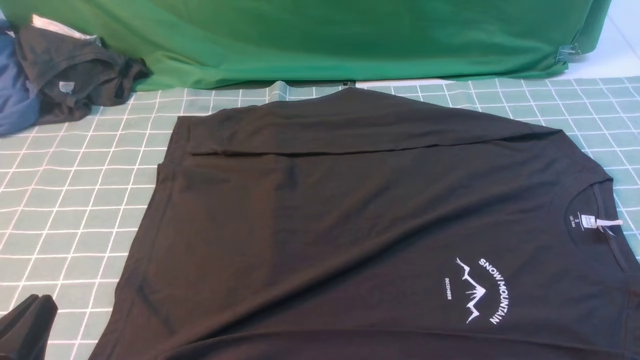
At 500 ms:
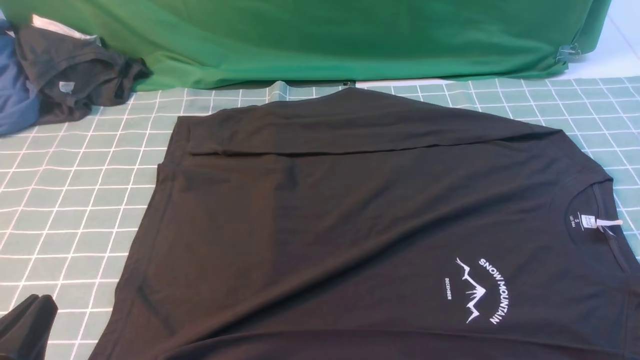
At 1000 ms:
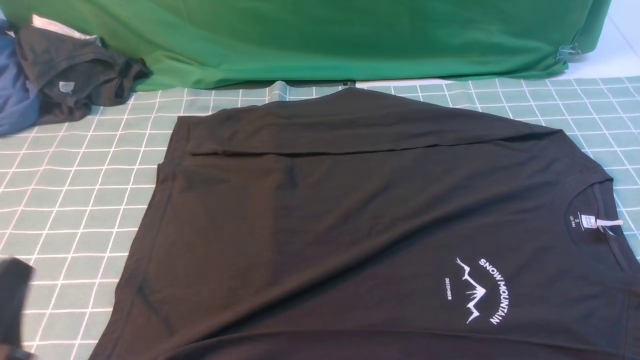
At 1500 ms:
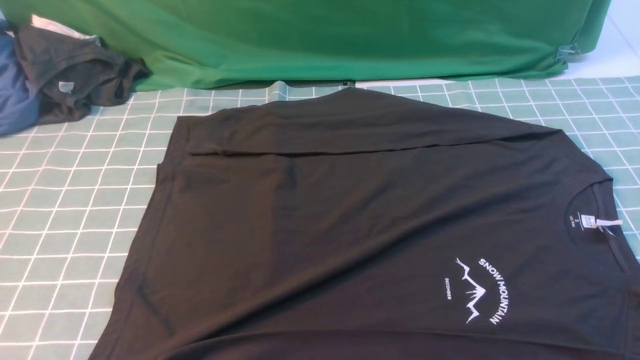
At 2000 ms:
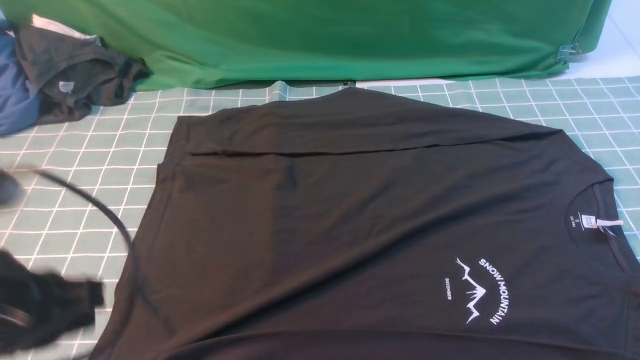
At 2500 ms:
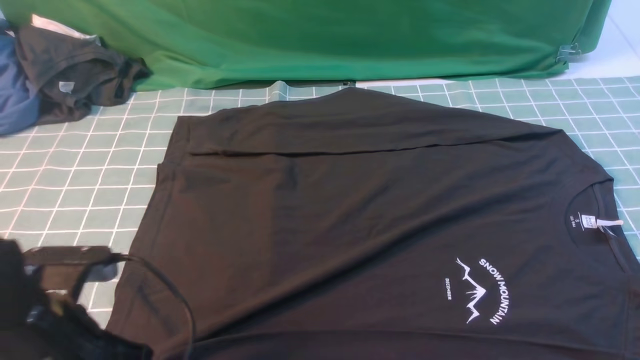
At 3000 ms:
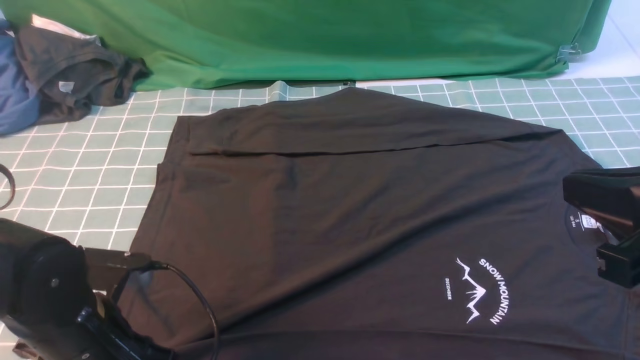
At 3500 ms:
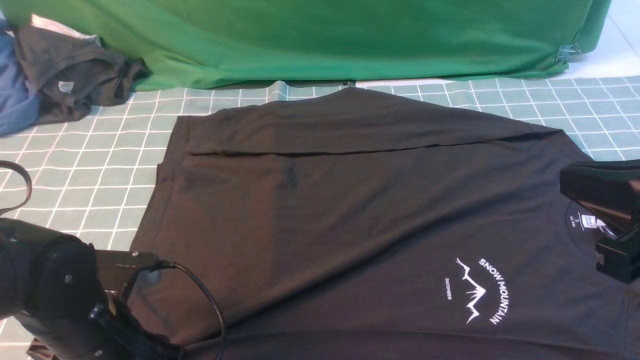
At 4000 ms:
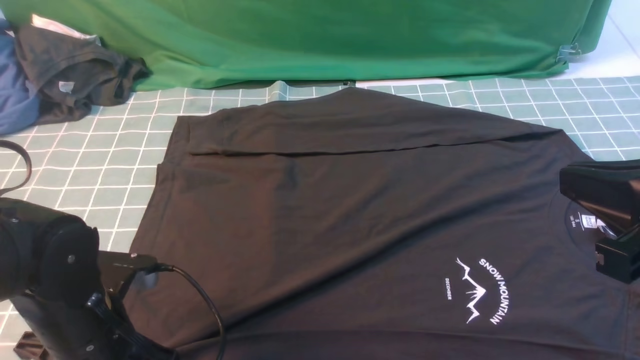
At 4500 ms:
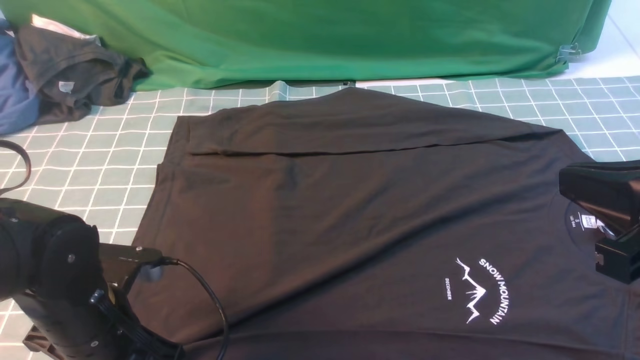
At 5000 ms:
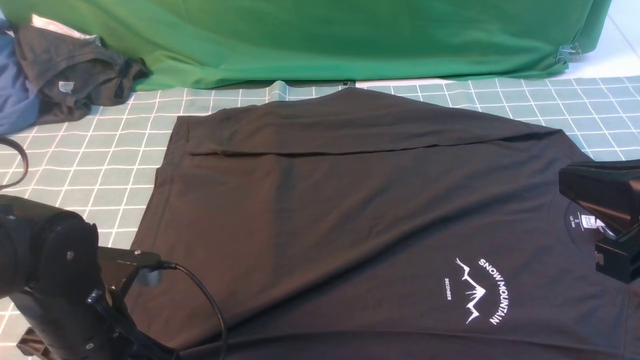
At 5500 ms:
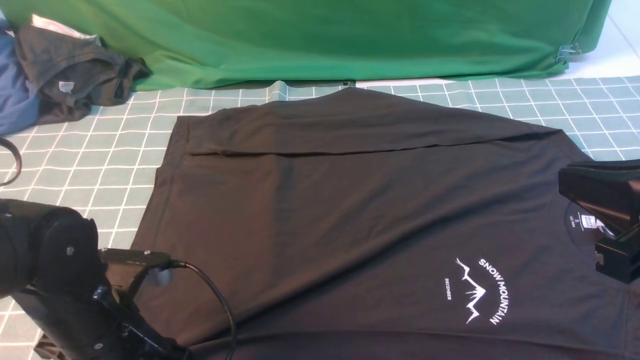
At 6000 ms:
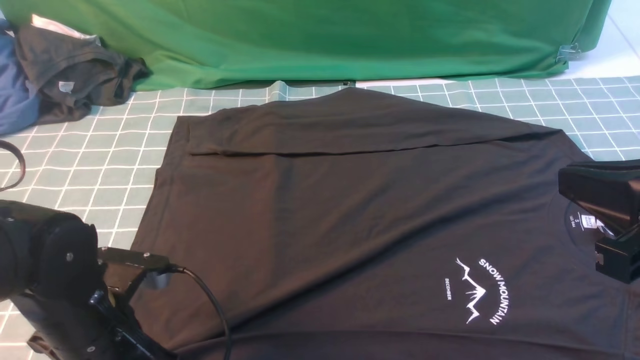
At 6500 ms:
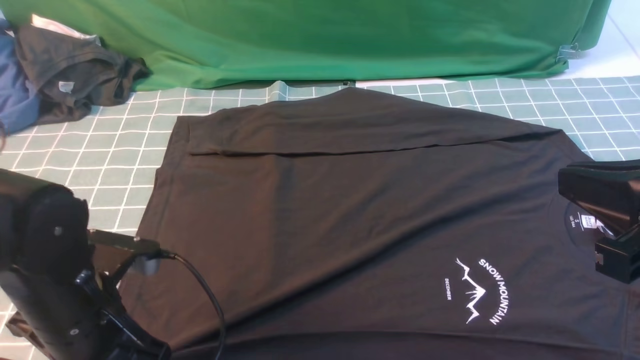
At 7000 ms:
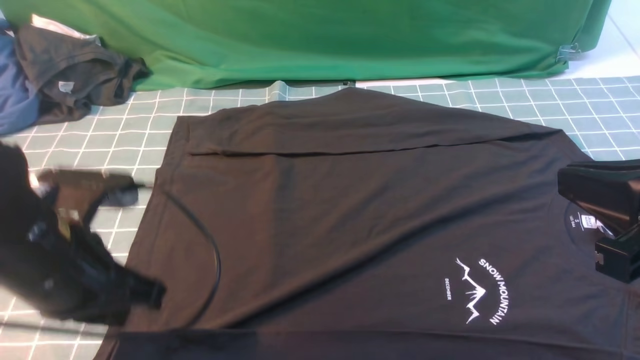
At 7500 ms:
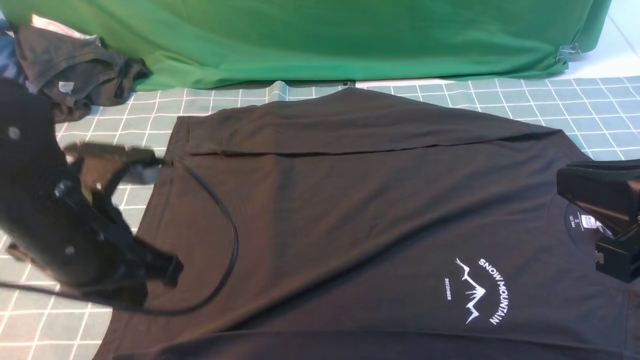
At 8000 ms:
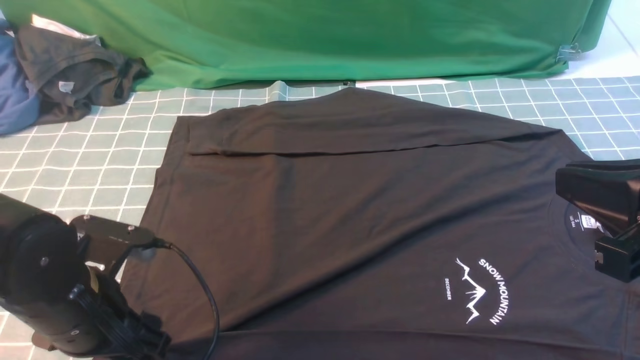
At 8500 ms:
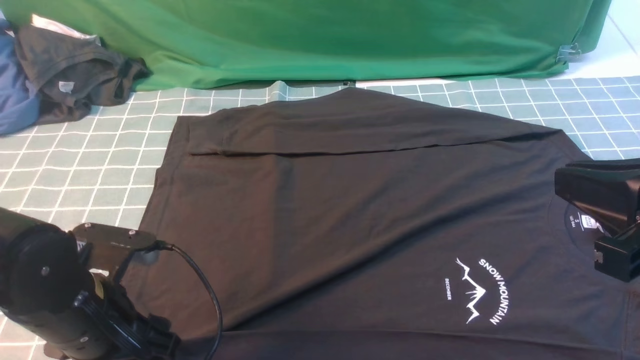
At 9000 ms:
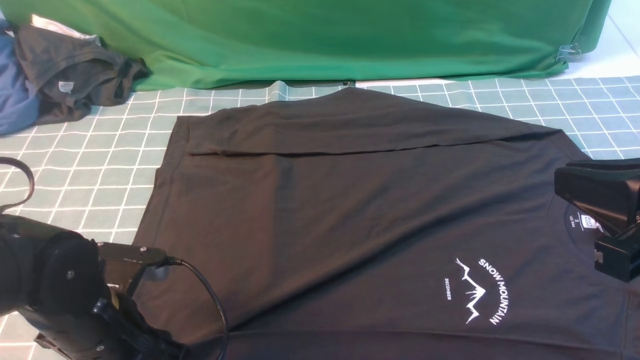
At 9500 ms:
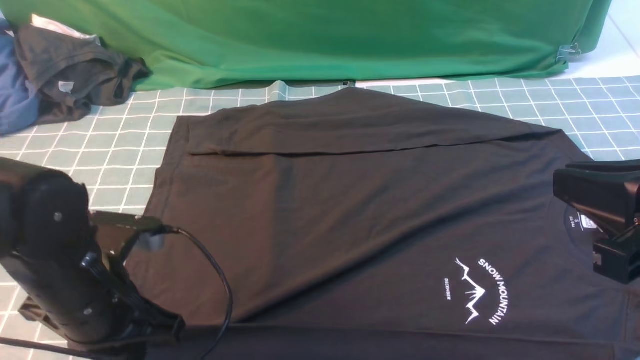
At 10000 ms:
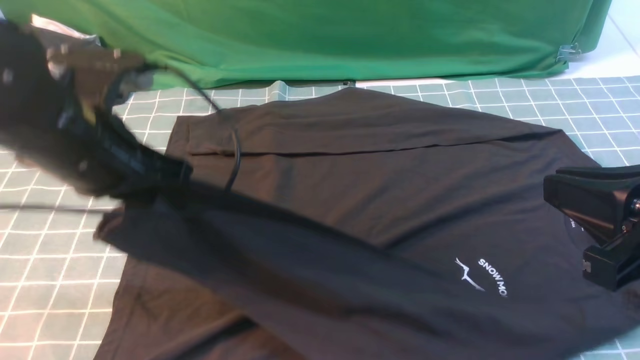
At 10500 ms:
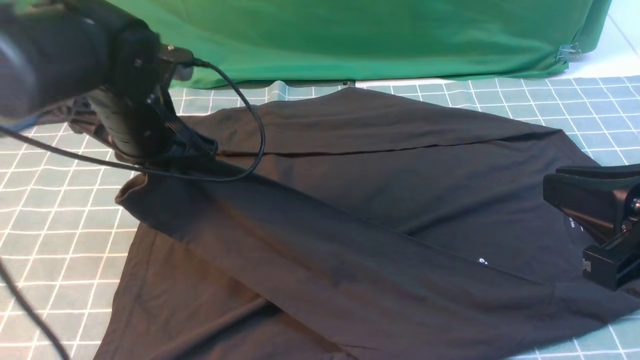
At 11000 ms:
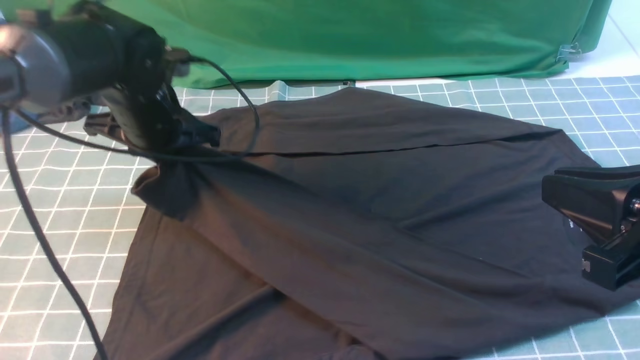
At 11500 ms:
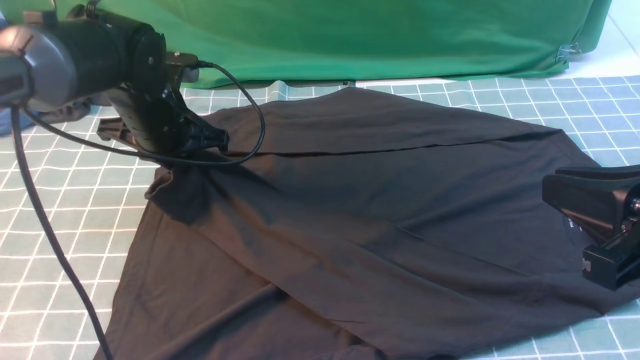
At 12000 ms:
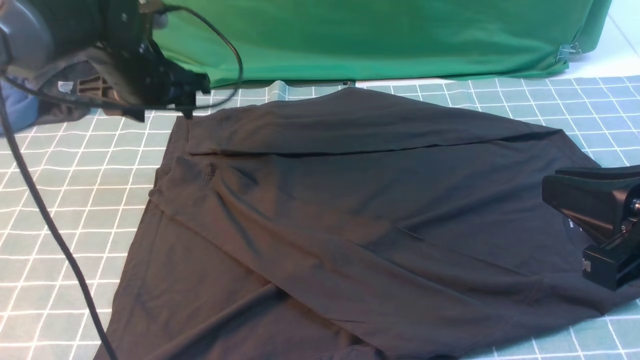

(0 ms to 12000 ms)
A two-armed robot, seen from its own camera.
Step, 0 ms - 9500 ms: use the left arm to clamp the cuff closest to it.
0 ms - 2000 ms: The left gripper travels upward and forward by approximately 10 cm.
2000 ms - 4000 ms: The left gripper goes about 10 cm downward and forward, and opens, while the right gripper heads to the left and forward, covering approximately 10 cm.
4000 ms - 6000 ms: The left gripper closes.
6000 ms - 8000 ms: The left gripper moves some 10 cm upward and comes back, and opens.
8000 ms - 10000 ms: The left gripper is displaced upward and forward by about 15 cm, and closes its fingers.
10000 ms - 12000 ms: The left gripper shifts some 15 cm forward, and opens its fingers.

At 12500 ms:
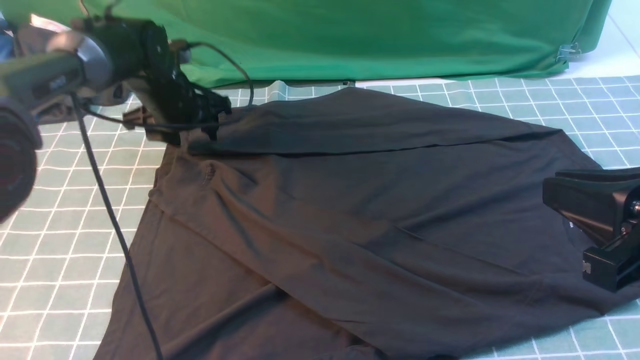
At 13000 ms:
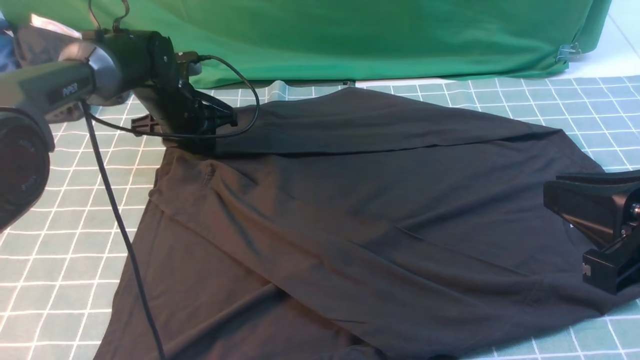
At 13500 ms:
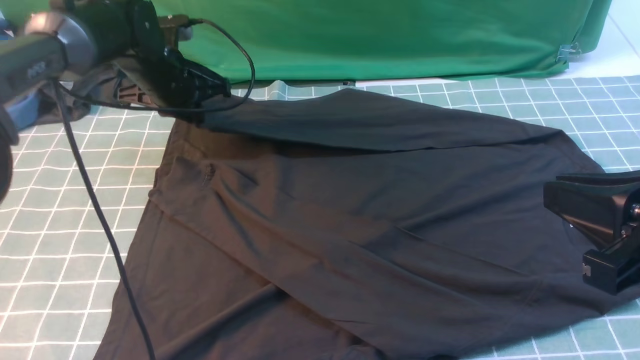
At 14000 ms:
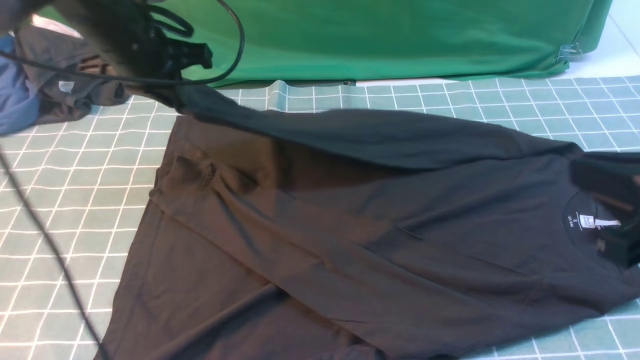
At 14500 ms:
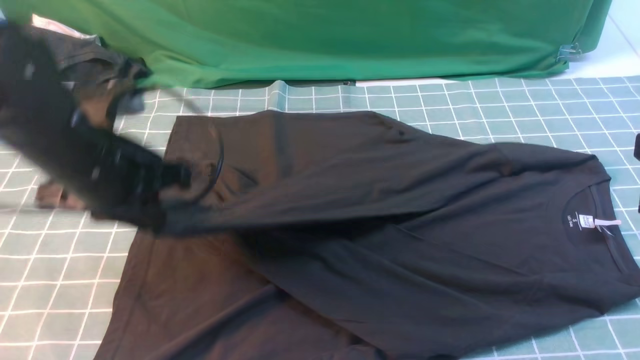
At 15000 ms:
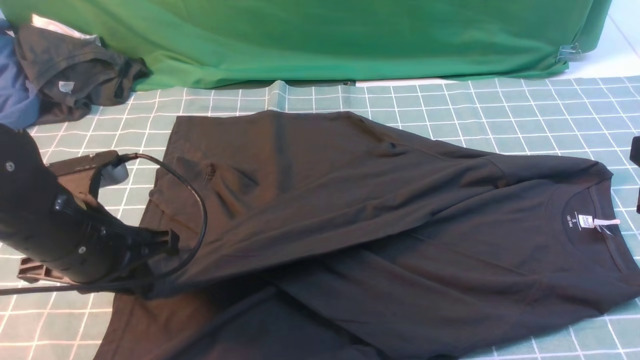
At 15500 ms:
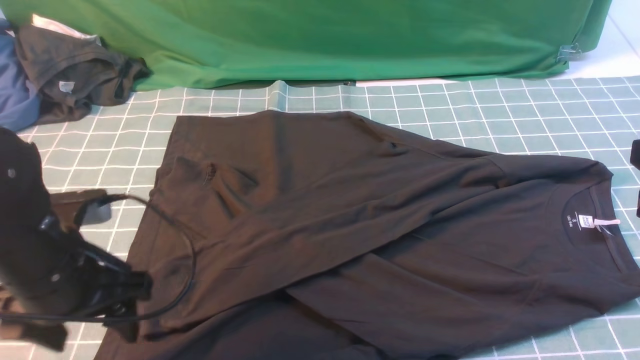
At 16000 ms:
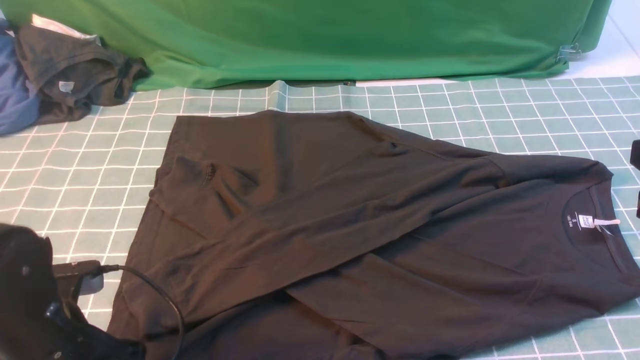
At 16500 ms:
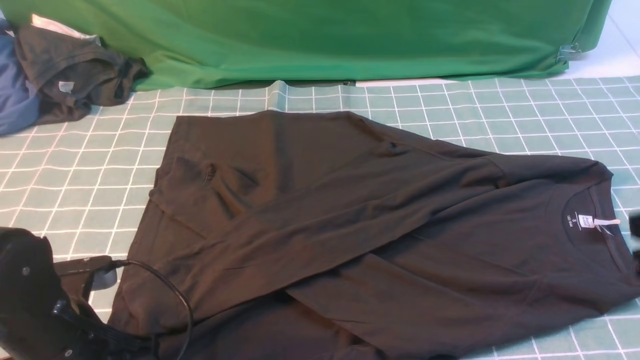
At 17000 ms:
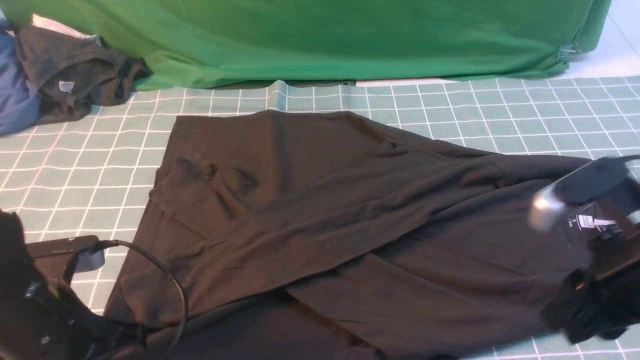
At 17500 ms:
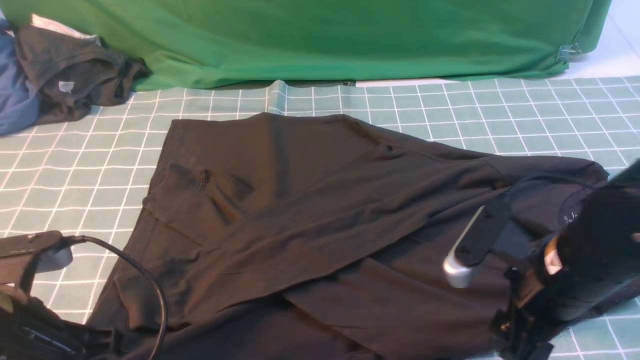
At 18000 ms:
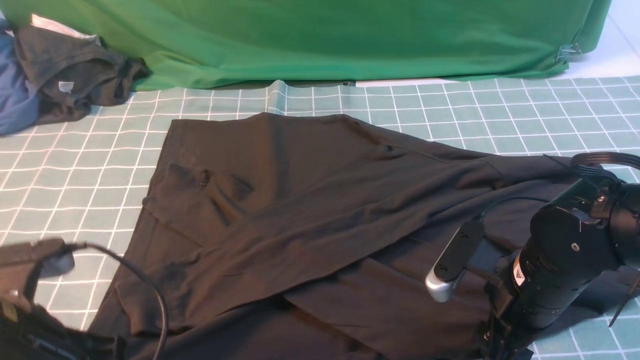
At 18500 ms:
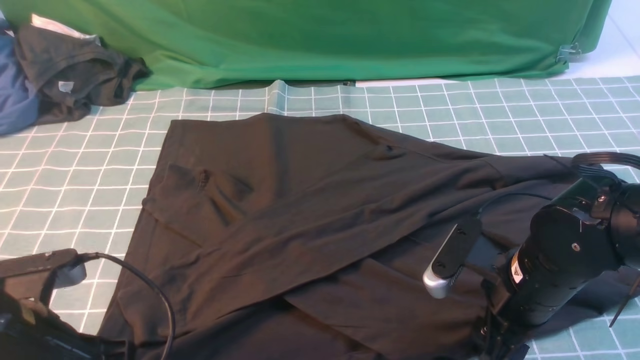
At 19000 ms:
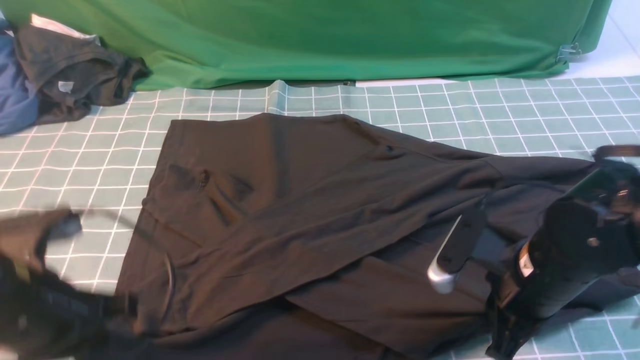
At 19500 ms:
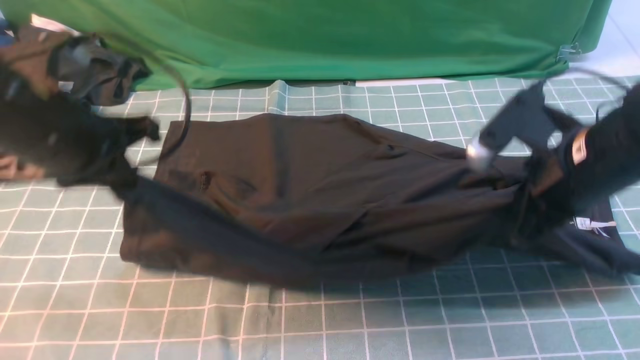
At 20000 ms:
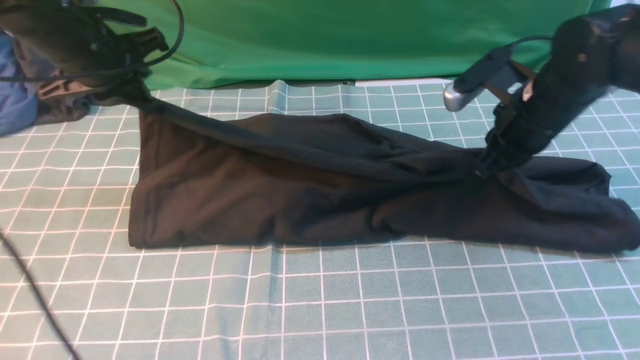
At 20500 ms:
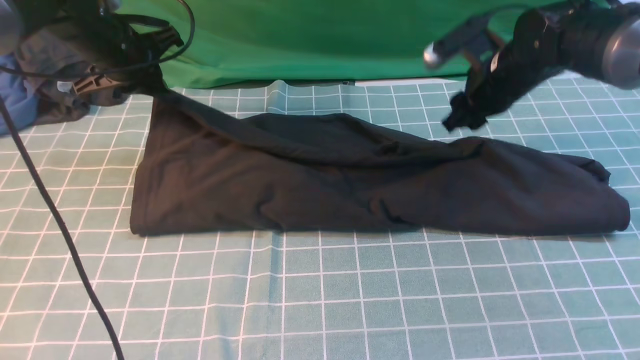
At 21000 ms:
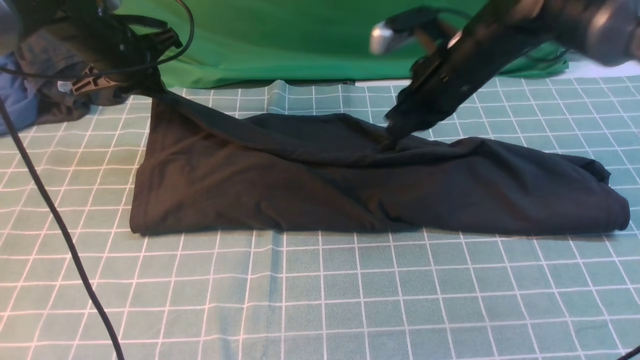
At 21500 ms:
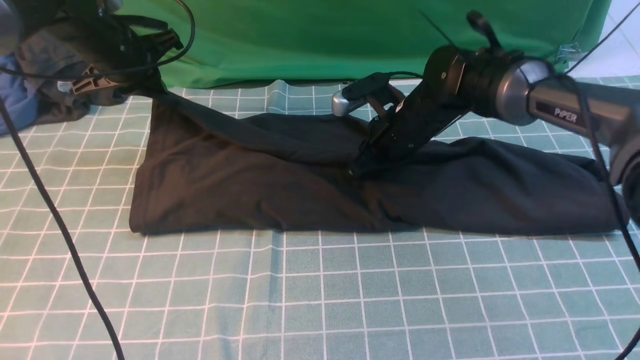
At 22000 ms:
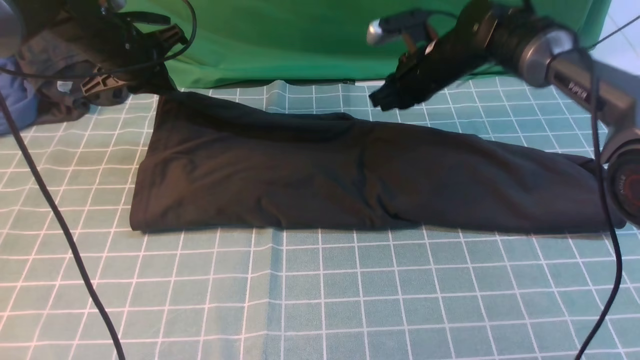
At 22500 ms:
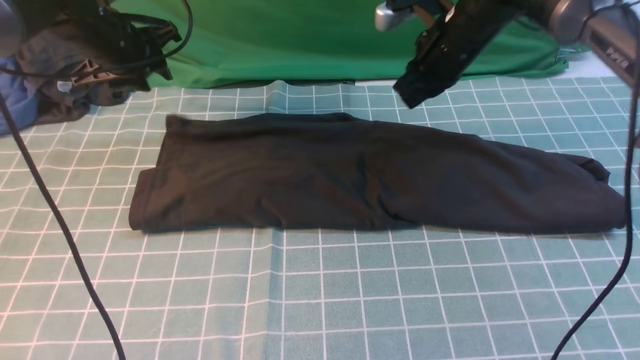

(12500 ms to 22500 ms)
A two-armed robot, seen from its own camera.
Step, 12500 ms - 13500 ms: use the left arm to clamp the cuff farthest from it.
Step, 14000 ms - 15000 ms: use the left arm to drag and drop the cuff onto the cuff closest to the left arm.
Step, 16000 ms - 19000 ms: use both arms simultaneously to clamp the lower edge of the clothing fabric.
Step, 19500 ms - 22000 ms: use both arms to drag the lower edge of the fabric forward and fold it over the upper edge.
12500 ms - 14500 ms: The left gripper goes approximately 20 cm backward and upward, and closes. Meanwhile the right gripper changes place by approximately 5 cm.
14500 ms - 16500 ms: The left gripper goes some 15 cm backward and downward, and opens, then closes again.
16500 ms - 18500 ms: The left gripper shifts by about 5 cm; the right gripper shifts roughly 20 cm downward, to the left and forward, and opens up.
18500 ms - 20500 ms: The grippers both shift forward by some 30 cm. The right gripper closes and opens again.
20500 ms - 22500 ms: The right gripper shifts approximately 5 cm upward, and closes; the left gripper opens its fingers.
